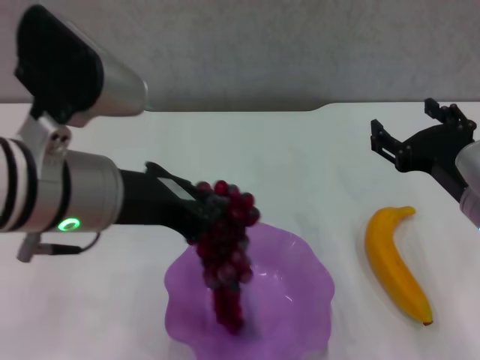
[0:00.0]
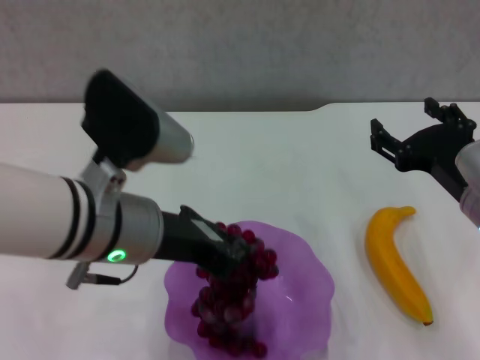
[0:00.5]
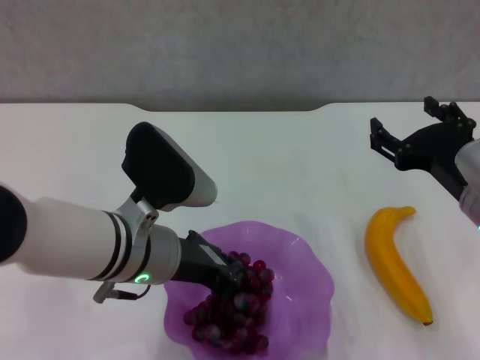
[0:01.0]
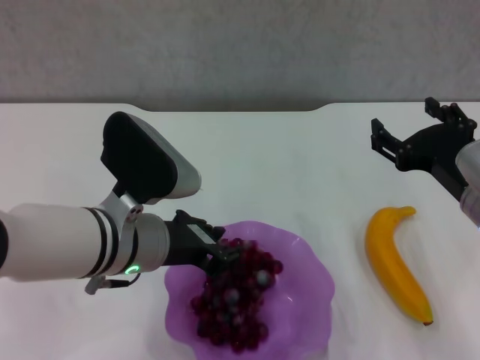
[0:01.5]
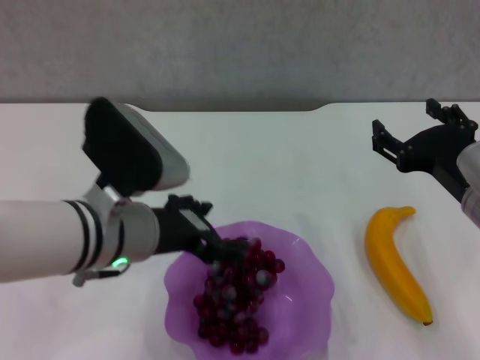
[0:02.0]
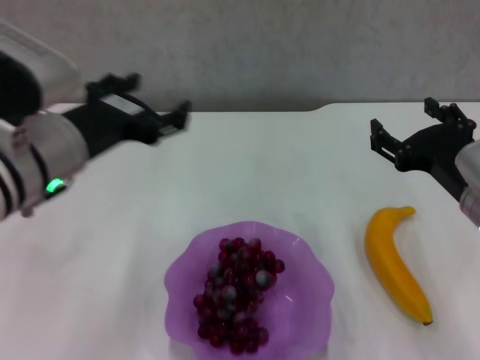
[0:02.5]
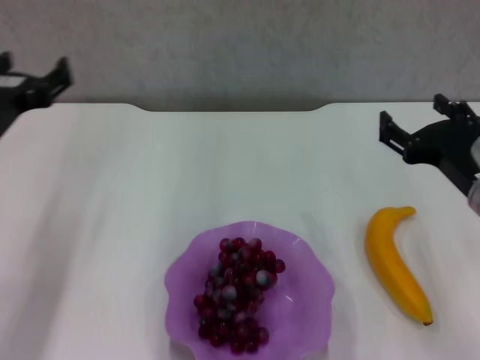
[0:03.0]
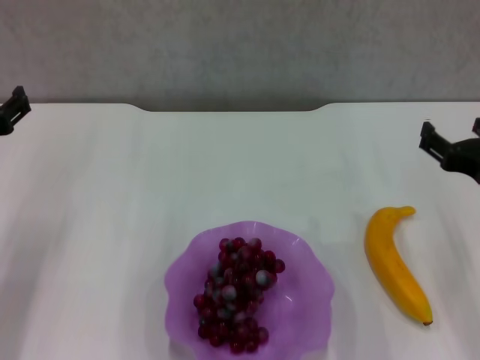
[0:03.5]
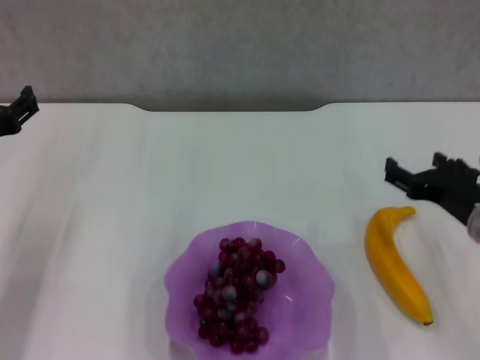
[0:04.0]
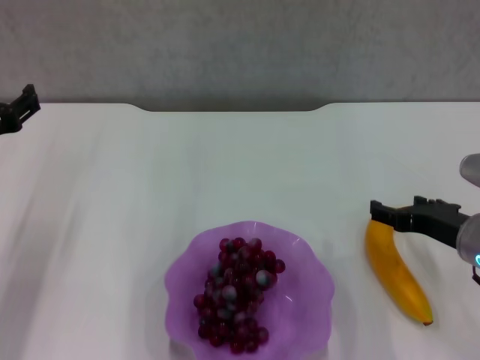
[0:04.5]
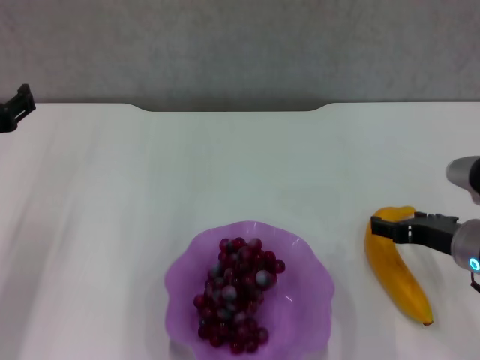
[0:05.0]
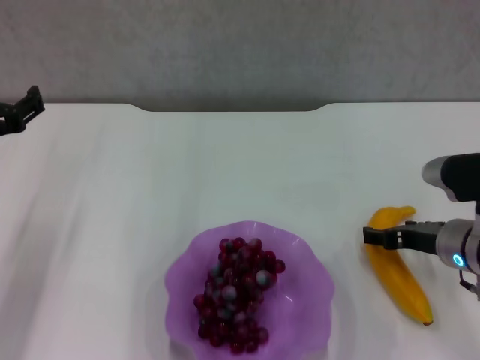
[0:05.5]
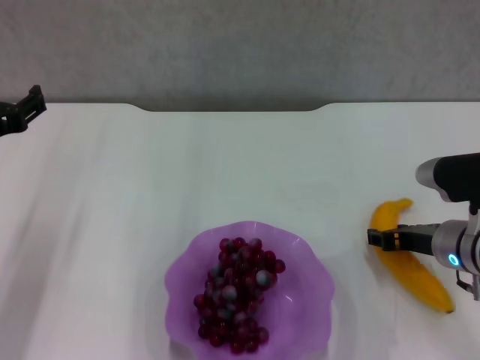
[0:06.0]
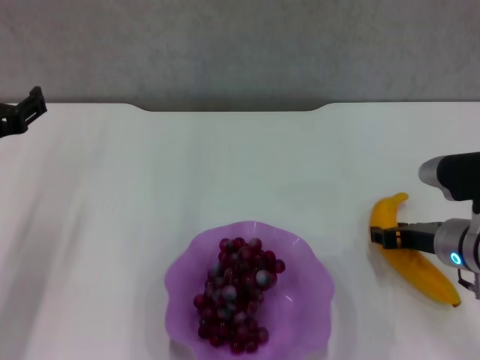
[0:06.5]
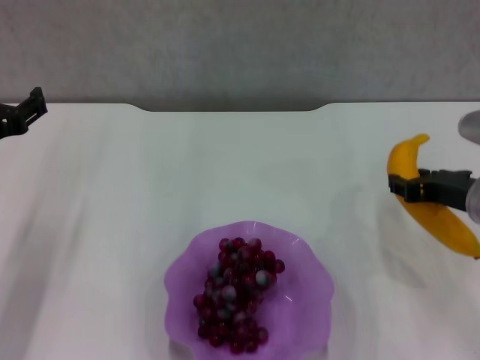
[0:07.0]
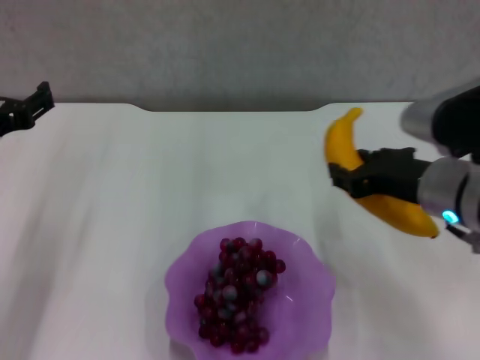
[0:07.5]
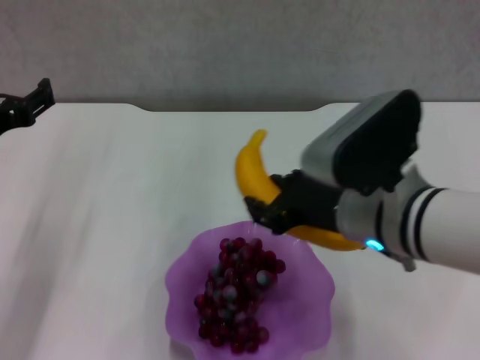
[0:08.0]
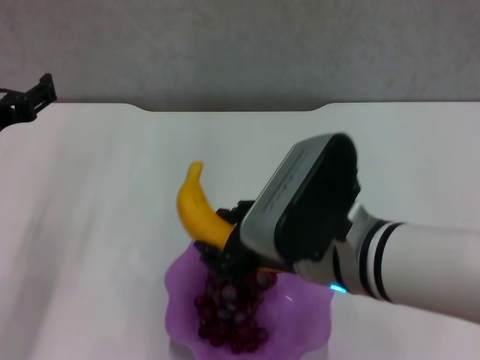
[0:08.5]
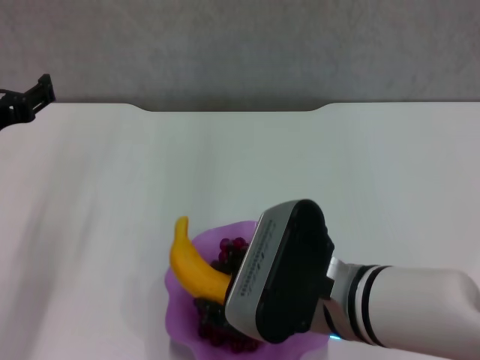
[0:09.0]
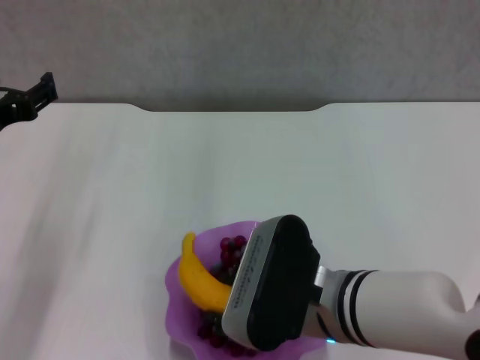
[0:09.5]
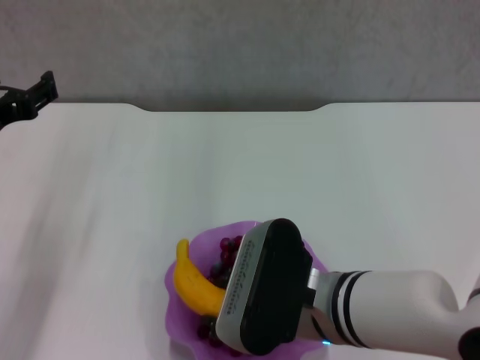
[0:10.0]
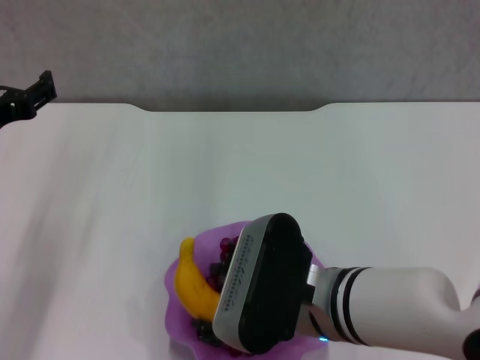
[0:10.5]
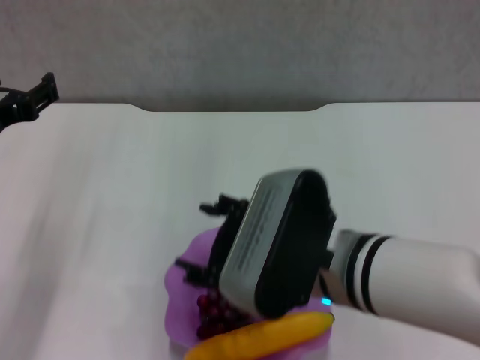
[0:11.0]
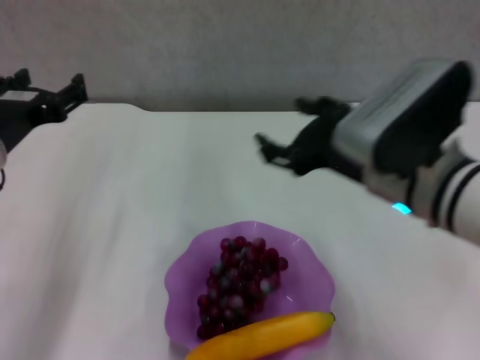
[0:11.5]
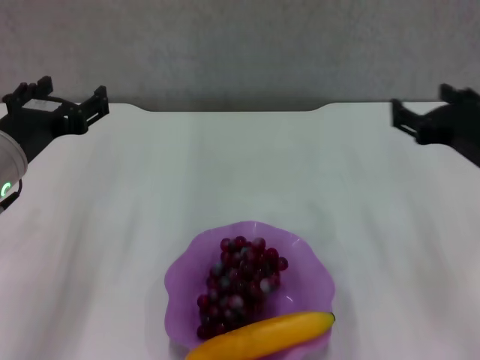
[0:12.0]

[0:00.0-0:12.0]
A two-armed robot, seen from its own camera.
Step, 0:02.0 to 0:06.0: Grasp the banana with right gripper.
Step, 0:06.5 to 0:10.5: Place the banana in the purple plate with right gripper.
0:00.0 to 0:02.0: The left gripper heads downward, covering about 10 cm, and opens its fingers.
0:02.0 to 0:04.0: The left gripper is displaced to the left by about 15 cm.
0:04.0 to 0:06.0: The right gripper moves roughly 5 cm.
0:06.0 to 0:08.0: The right gripper moves to the left and upward, approximately 15 cm, and closes up.
0:08.0 to 0:10.0: The right gripper travels to the left by roughly 5 cm.
0:10.0 to 0:12.0: The right gripper moves to the right and forward, roughly 20 cm, and opens its fingers.

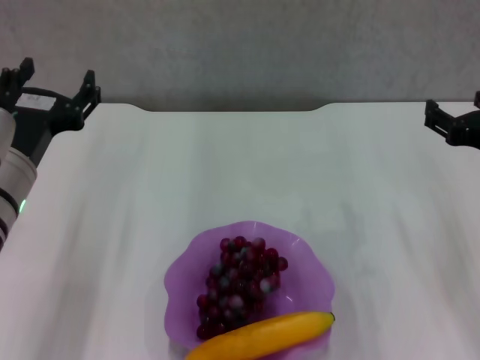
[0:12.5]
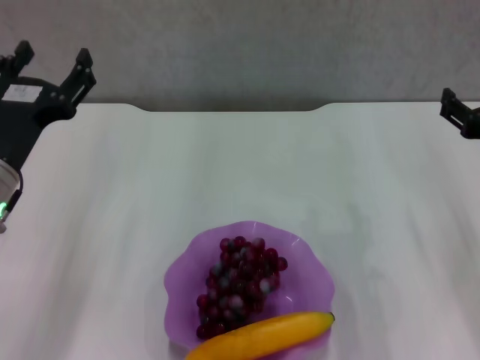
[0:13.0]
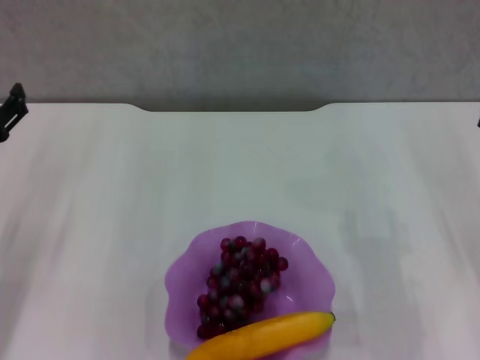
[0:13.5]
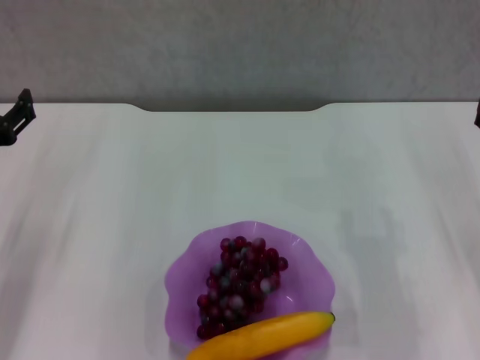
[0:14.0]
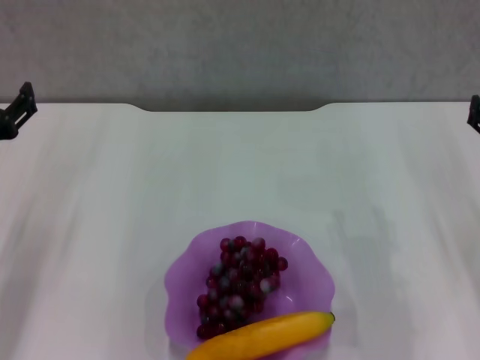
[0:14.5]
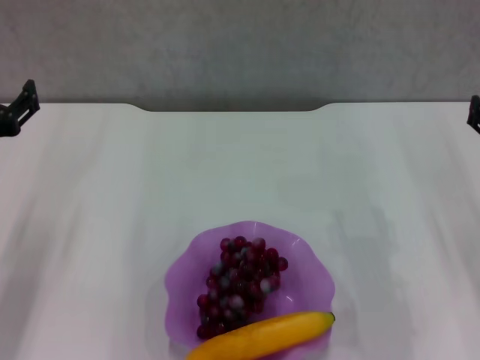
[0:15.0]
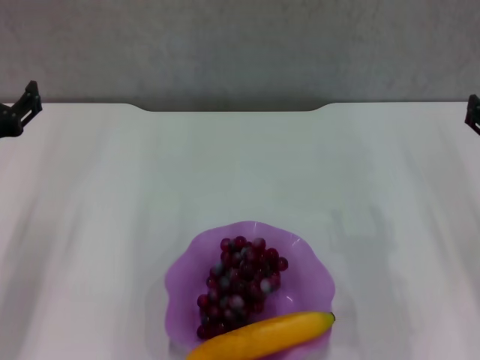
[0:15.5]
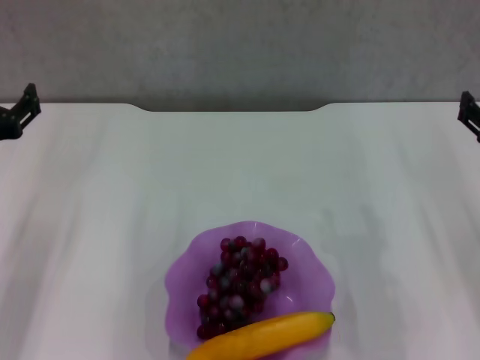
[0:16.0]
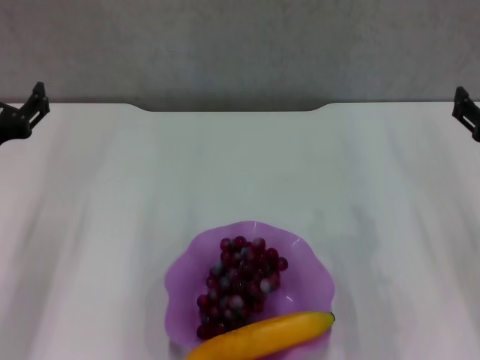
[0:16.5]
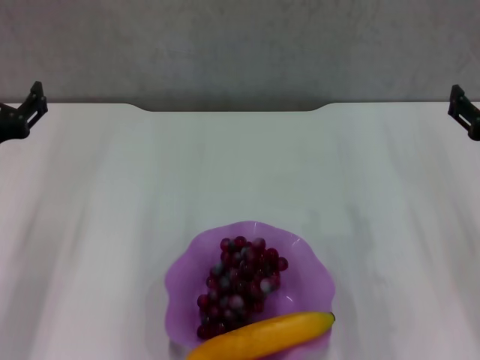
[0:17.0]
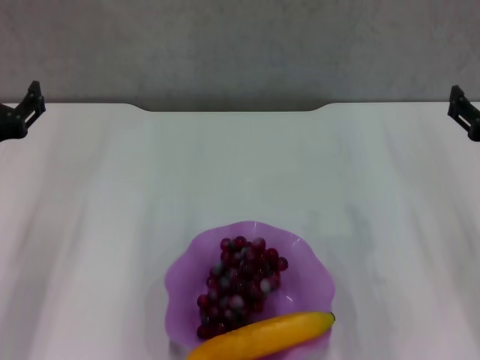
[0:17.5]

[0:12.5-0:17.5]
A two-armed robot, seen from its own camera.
0:12.5 to 0:15.0: The left gripper goes approximately 10 cm to the left.
0:15.0 to 0:17.5: There are only small adjustments of the grippers.
